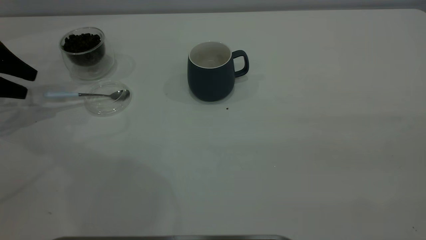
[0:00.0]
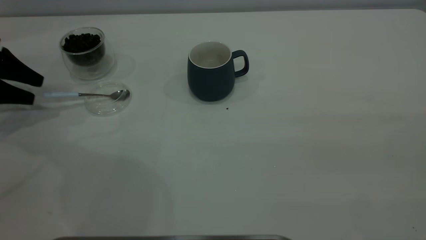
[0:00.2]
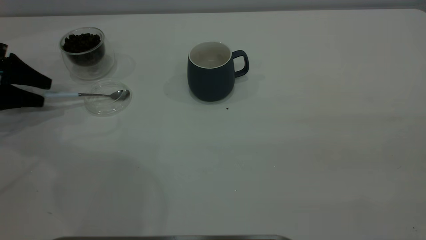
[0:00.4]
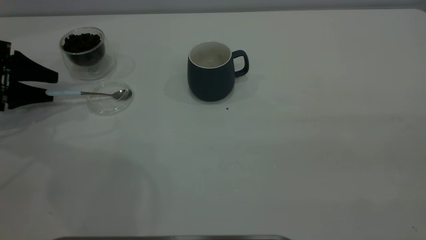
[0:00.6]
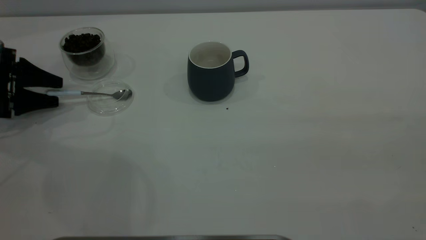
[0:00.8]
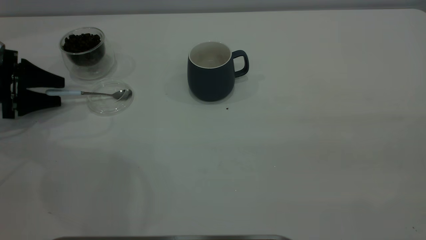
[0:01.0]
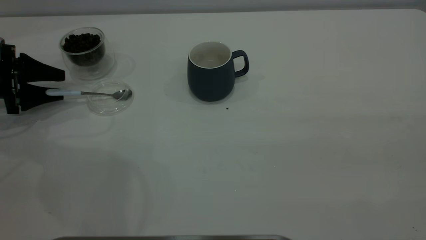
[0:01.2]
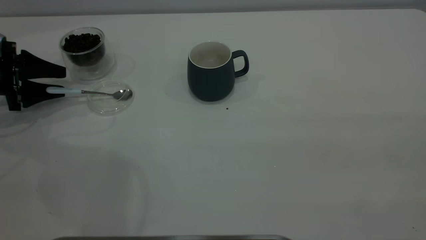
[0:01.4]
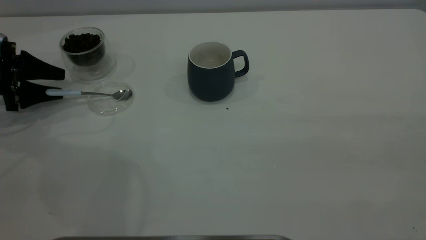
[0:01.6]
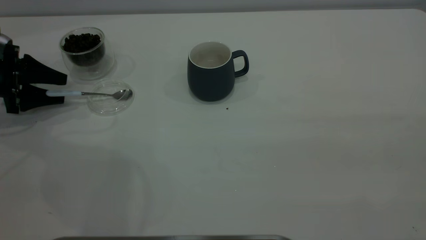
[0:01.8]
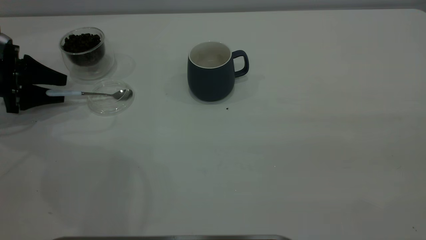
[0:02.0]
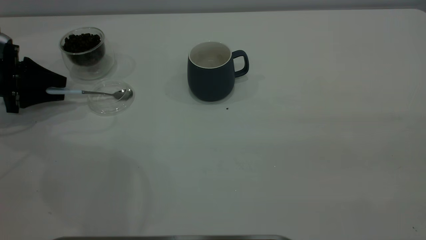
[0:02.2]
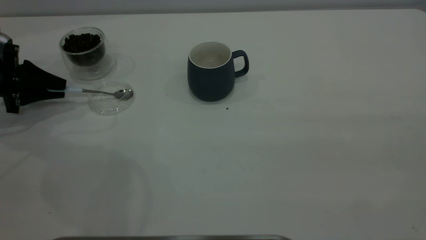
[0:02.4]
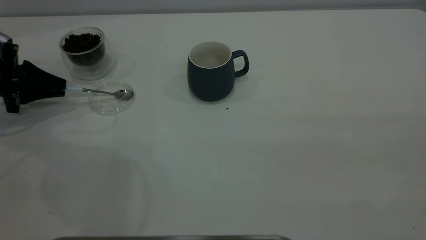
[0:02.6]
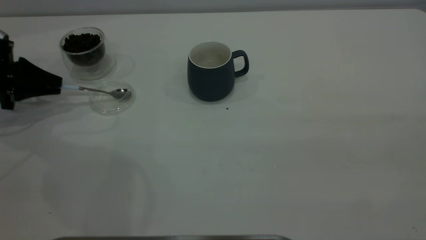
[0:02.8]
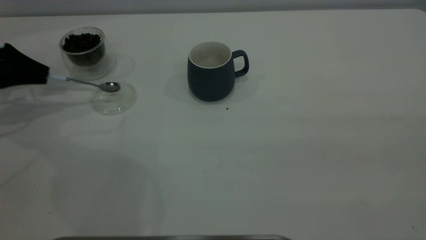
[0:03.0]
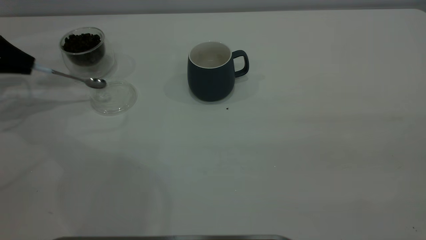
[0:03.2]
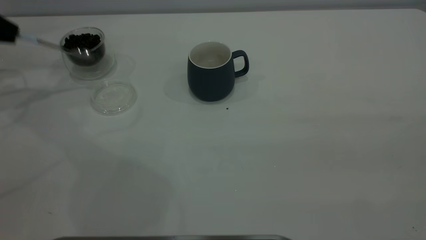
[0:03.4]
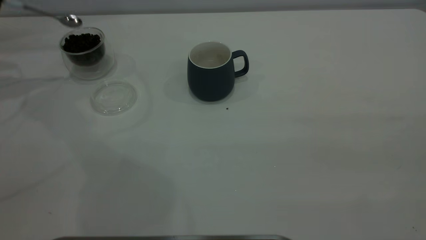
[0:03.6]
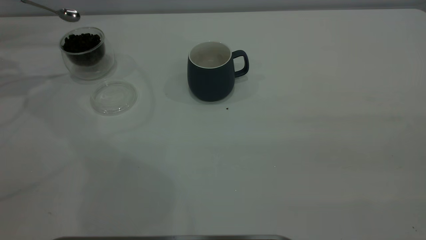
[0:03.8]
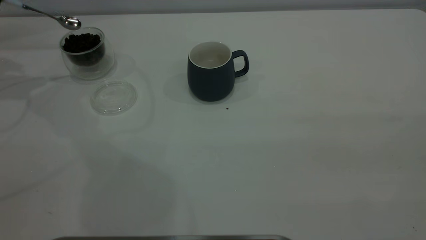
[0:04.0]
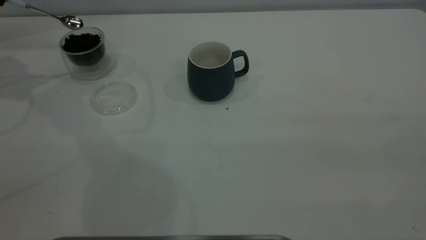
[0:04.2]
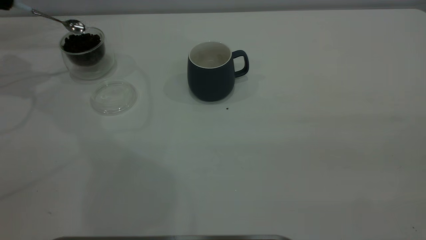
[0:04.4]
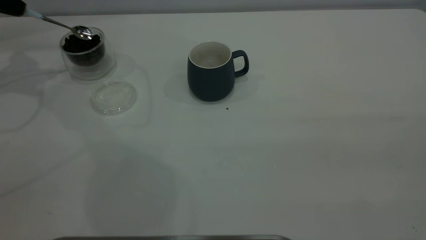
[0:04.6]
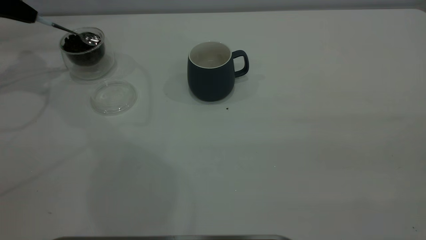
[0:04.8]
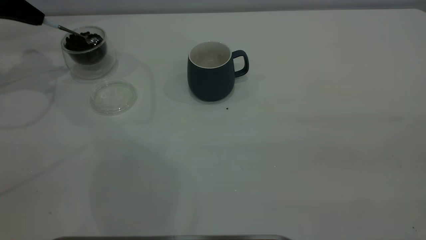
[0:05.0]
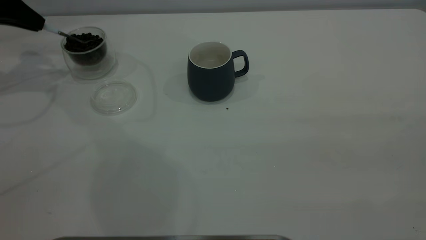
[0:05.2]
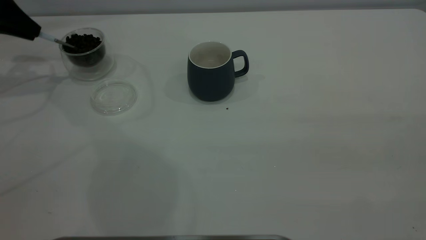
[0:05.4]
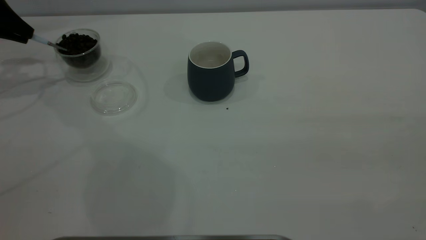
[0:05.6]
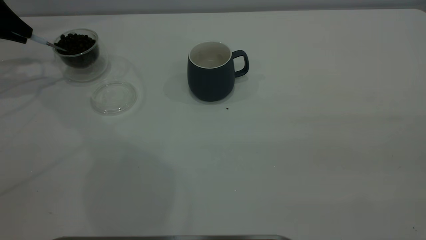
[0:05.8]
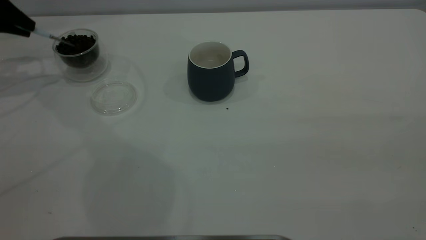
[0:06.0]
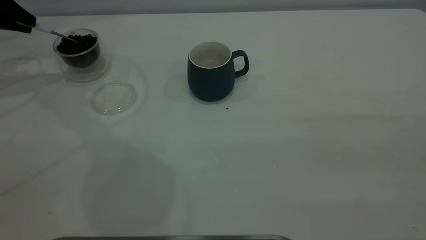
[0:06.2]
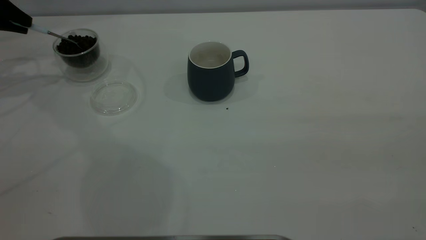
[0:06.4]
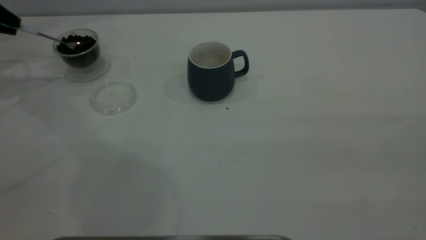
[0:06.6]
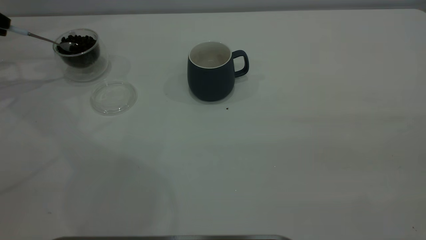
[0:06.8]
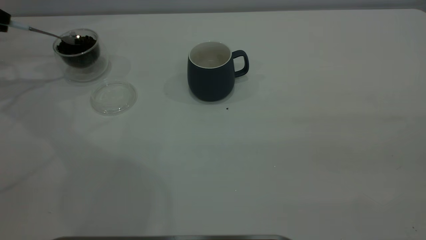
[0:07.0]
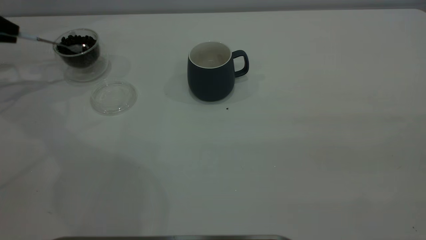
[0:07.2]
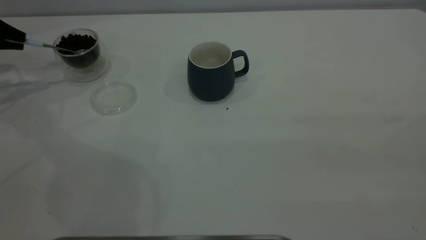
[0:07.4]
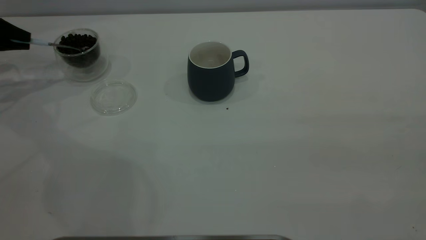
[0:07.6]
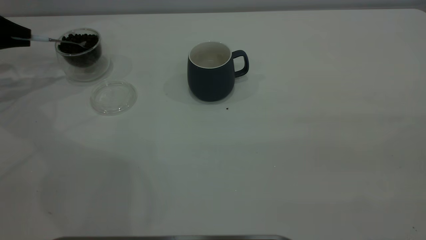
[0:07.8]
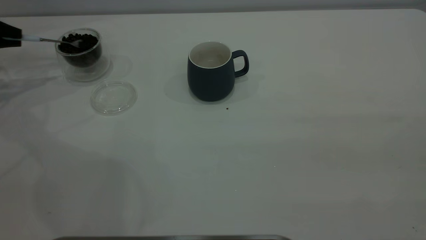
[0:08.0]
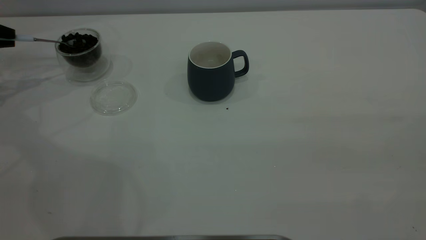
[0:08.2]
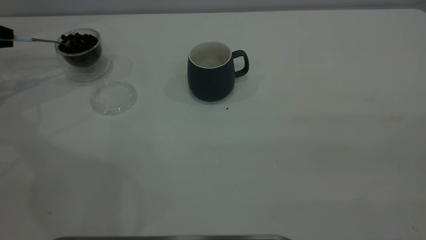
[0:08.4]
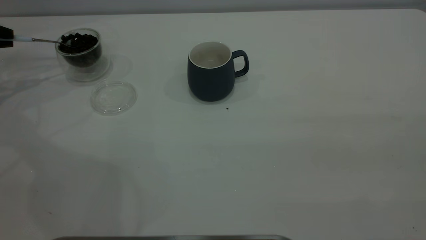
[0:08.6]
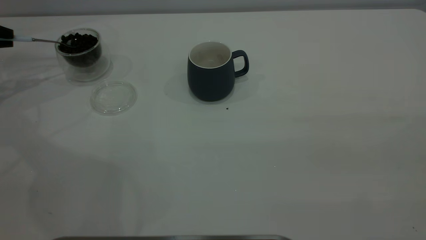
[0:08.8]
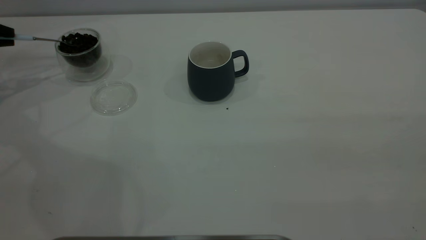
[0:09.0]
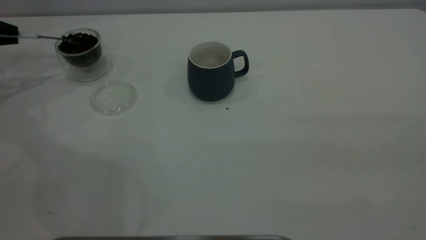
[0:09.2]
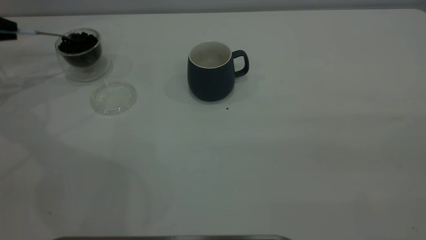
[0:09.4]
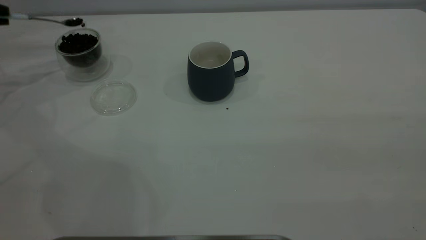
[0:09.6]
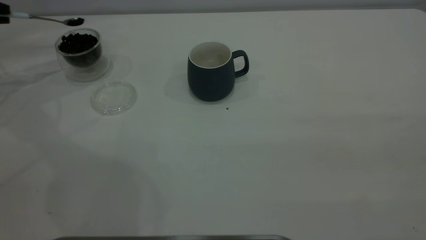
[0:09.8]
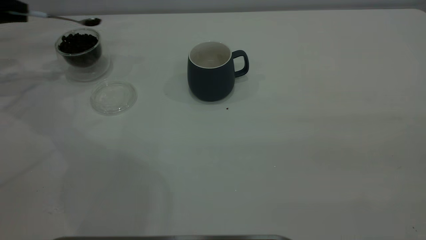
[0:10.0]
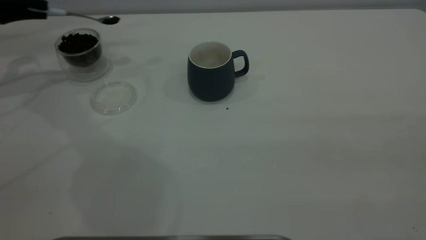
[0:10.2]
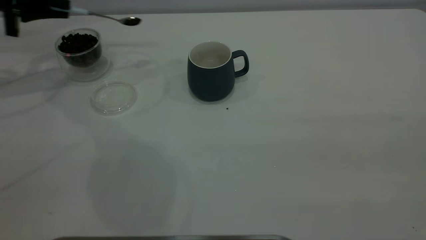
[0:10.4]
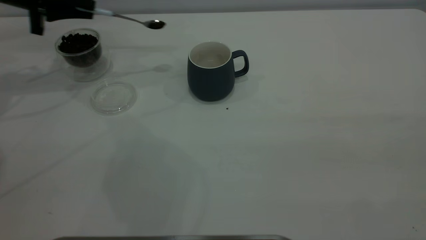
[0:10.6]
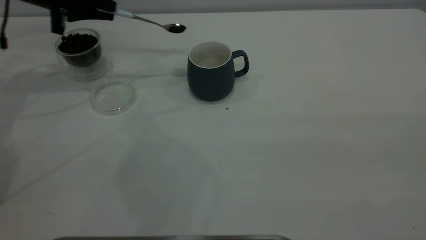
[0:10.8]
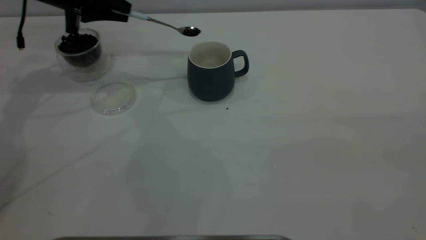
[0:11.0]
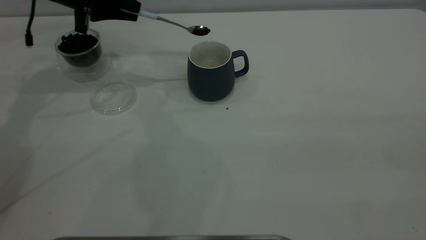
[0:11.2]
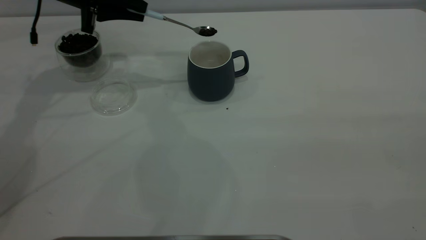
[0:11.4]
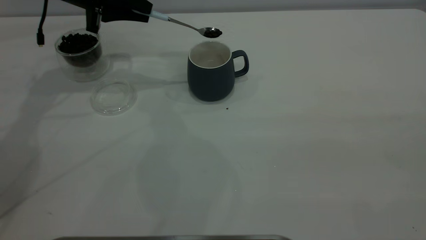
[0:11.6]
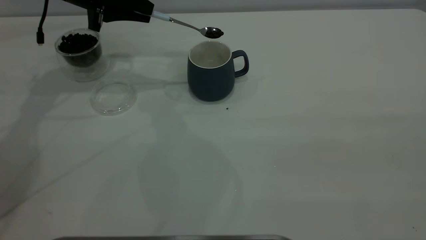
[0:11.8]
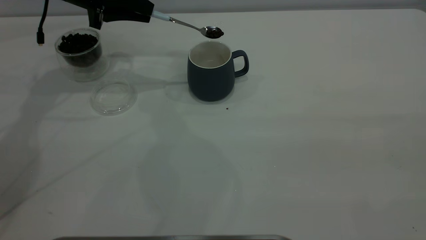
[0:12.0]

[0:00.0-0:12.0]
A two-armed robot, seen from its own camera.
Task of the whole recording: the right gripper place the grey cup in the center of the table, the left gripper take the blue spoon from the cup lid and scoop out the coffee beans from the coffee cup and put them into the grey cup, the left gripper put the spoon back into the cup lid.
Step, 0:00.0 to 0:03.2: Pick up the spoon.
0:00.0 to 0:01.6: The left gripper shifts approximately 5 cm downward.
0:01.6 to 0:03.0: The left gripper is displaced upward by roughly 5 cm, and closes its fingers.
0:03.0 to 0:04.4: The left gripper is displaced upward and forward by about 15 cm.
0:06.0 to 0:07.6: The left gripper shifts about 5 cm downward.
0:09.0 to 0:10.4: The left gripper goes about 10 cm to the right.
0:10.4 to 0:12.0: The left gripper heads to the right, covering about 15 cm.

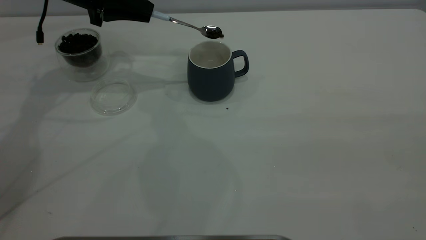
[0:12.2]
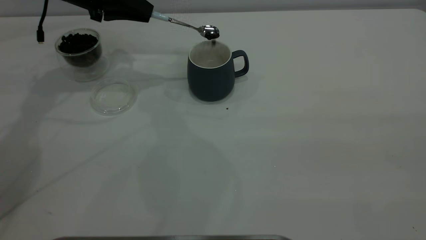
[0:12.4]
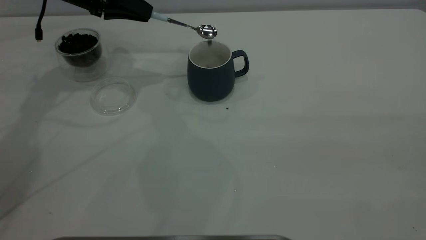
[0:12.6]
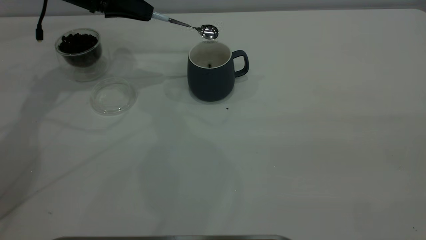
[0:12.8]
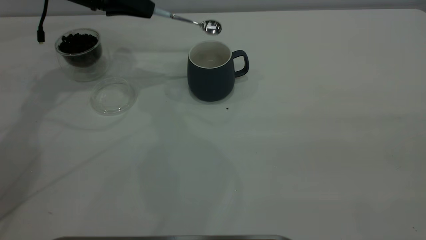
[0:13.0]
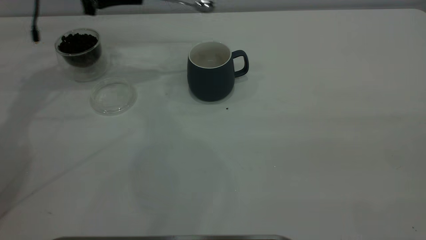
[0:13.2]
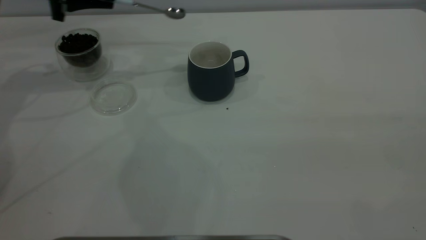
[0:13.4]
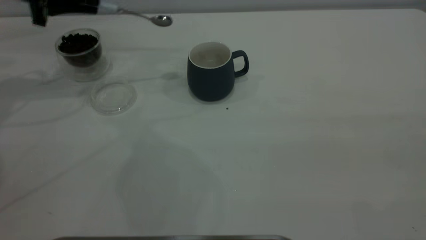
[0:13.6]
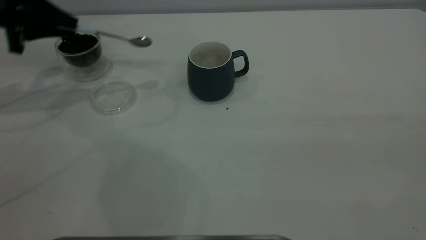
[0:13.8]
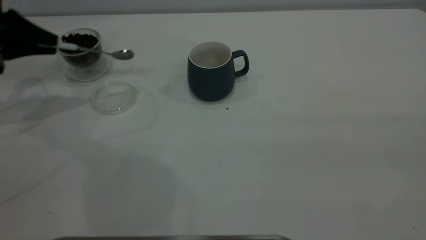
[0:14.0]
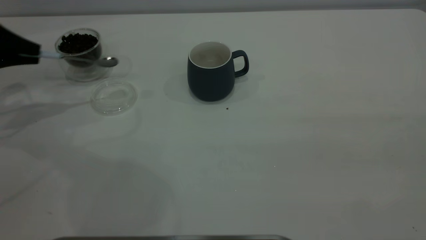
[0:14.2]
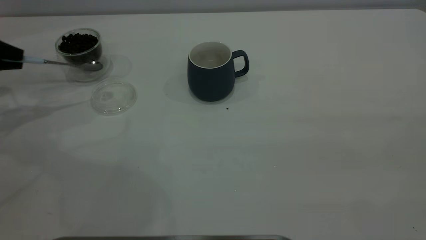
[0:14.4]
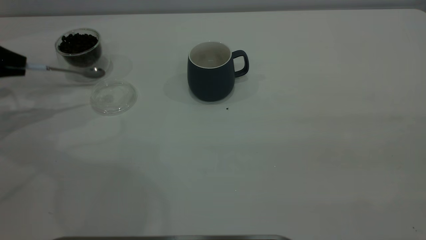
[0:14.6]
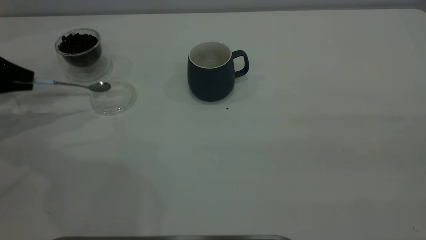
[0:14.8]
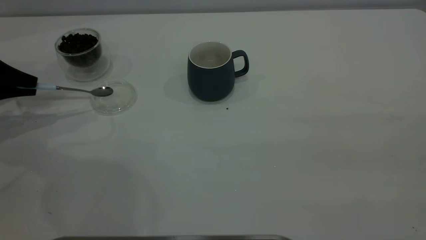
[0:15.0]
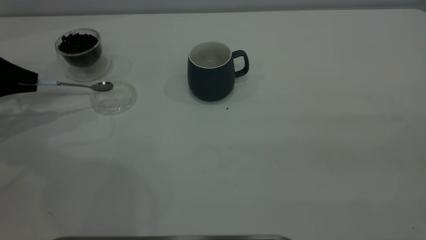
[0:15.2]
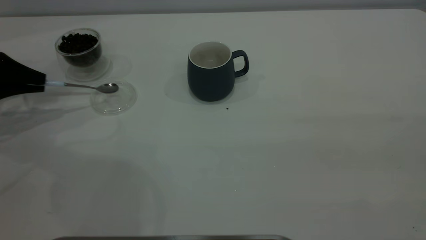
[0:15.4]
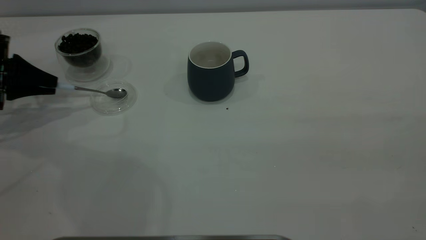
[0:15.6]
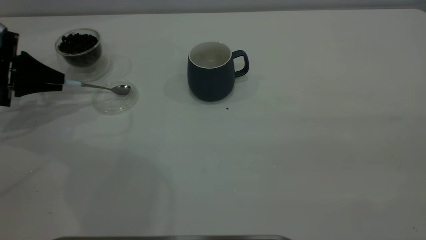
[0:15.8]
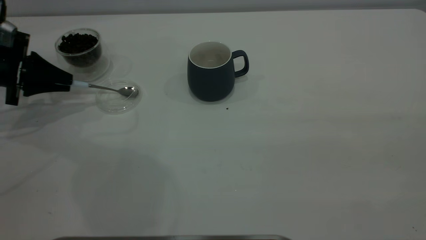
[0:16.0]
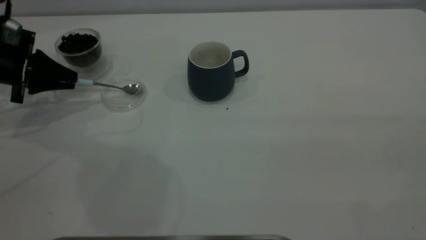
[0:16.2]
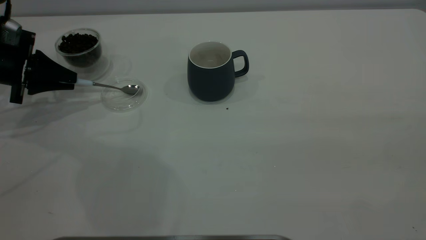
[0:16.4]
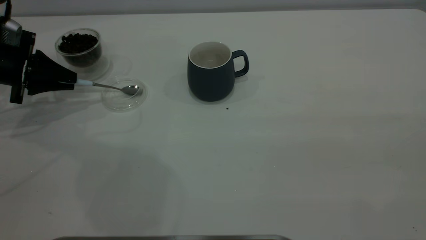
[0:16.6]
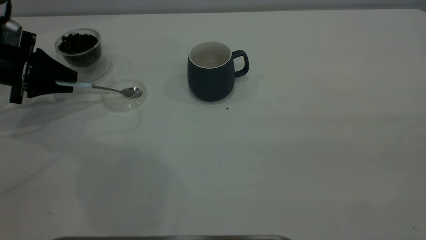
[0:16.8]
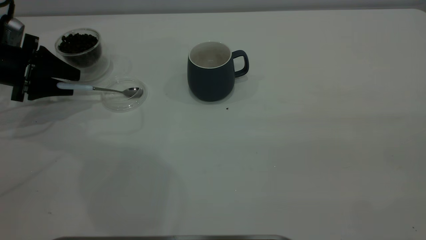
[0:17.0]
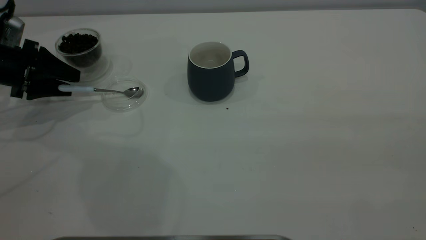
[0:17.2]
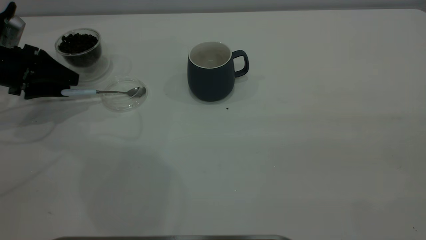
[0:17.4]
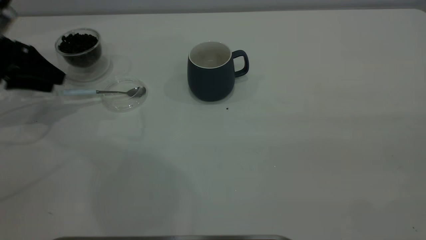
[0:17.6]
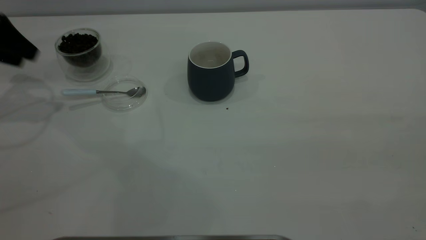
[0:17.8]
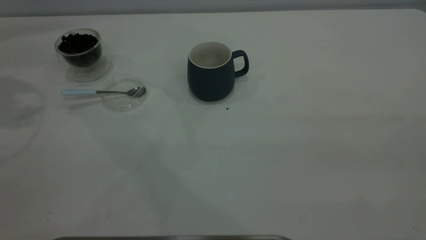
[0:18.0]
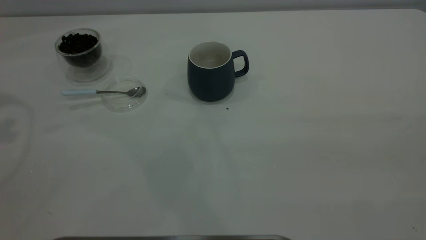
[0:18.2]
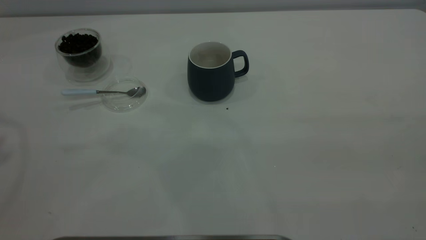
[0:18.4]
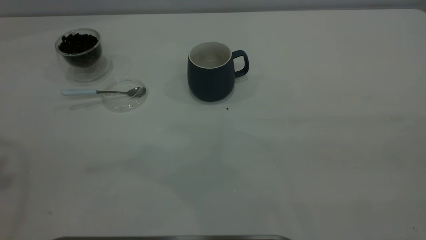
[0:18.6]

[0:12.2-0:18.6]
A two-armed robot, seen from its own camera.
Task of the whole recording: the right gripper place the grey cup in the center of the table, the left gripper take the blue spoon from the cup lid and scoop out the coffee beans from the coffee cup and put them into the grey cup, the left gripper put the spoon back into the cup lid.
Step, 0:13.2 to 0:17.8: Place the spoon back in its original place.
0:12.2 to 0:13.8: The left gripper is displaced to the left and backward by some 15 cm.
0:13.8 to 0:15.4: The left gripper moves downward and to the left, about 10 cm.
0:15.4 to 0:17.0: The left gripper opens up.
0:17.0 to 0:18.6: The left gripper heads upward and backward, covering roughly 40 cm.
